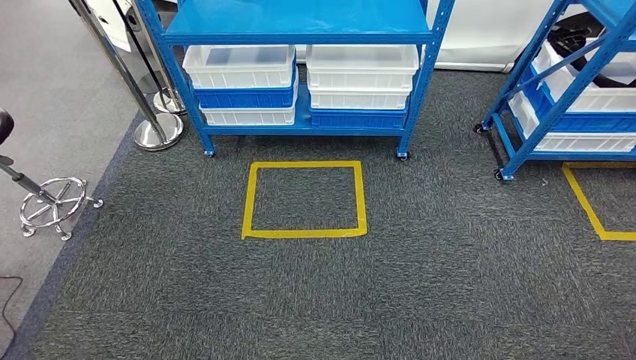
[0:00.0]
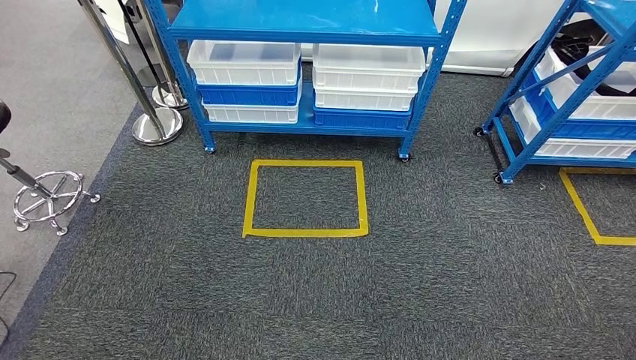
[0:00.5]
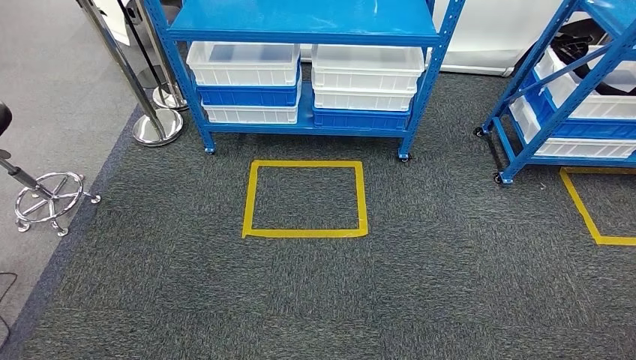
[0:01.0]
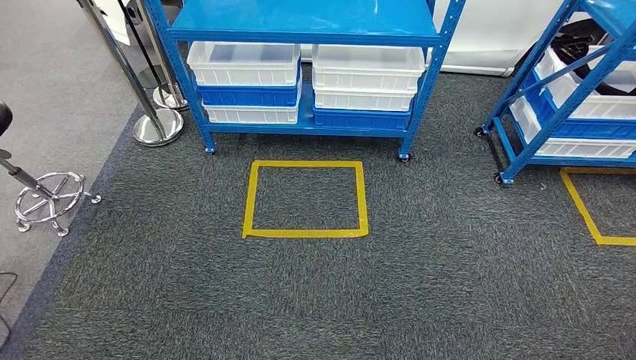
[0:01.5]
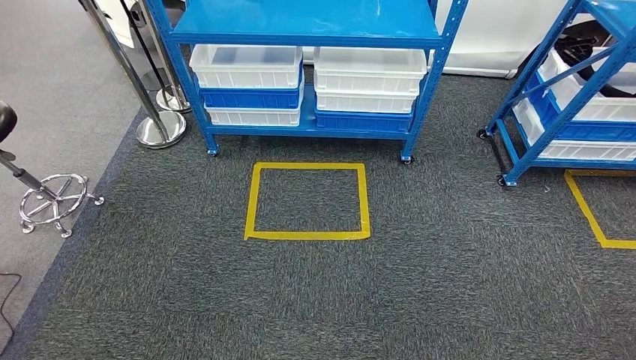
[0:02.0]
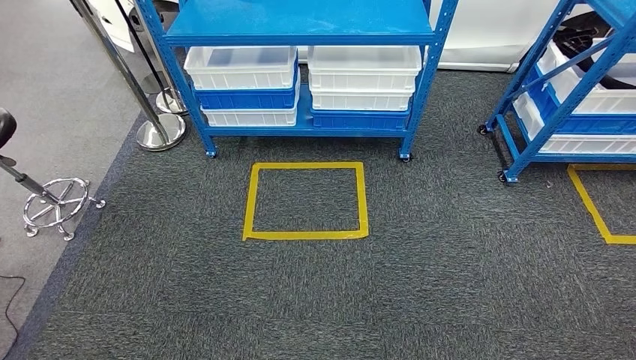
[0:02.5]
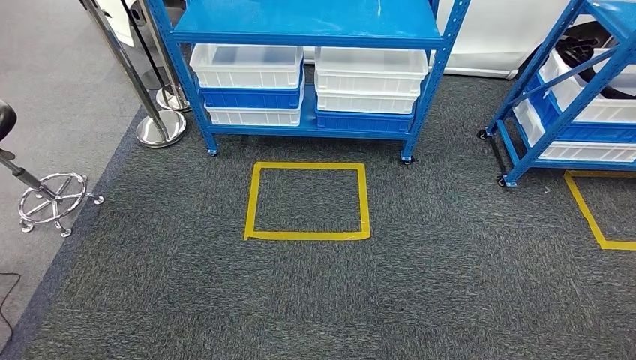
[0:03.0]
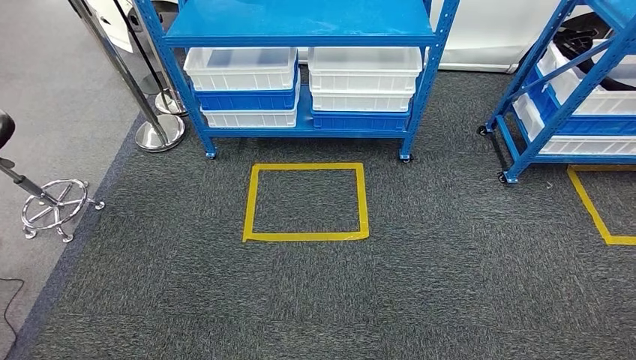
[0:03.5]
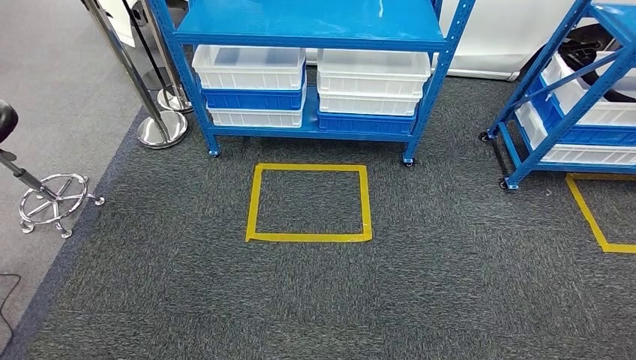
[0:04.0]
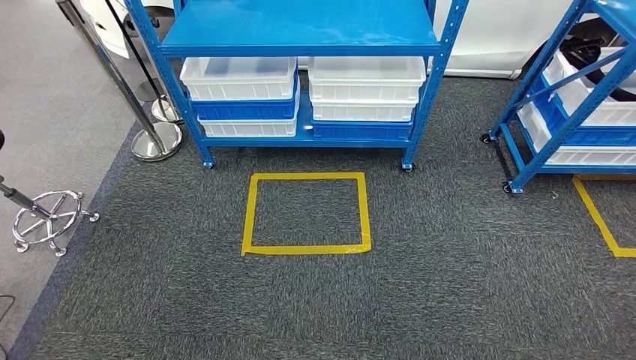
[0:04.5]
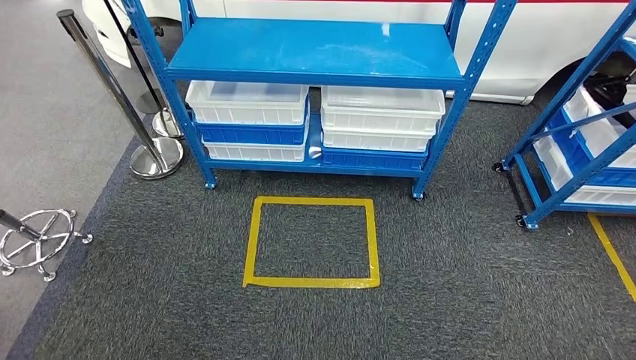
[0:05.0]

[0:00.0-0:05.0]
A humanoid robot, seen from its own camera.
Step, 0:00.0 to 0:05.0: Move to the initial position of the shelf.
0:00.0 to 0:02.5: There are only small adjustments of the hands.
